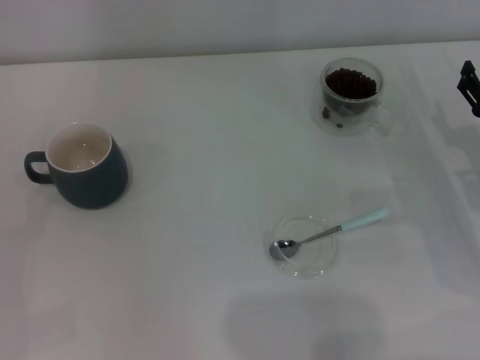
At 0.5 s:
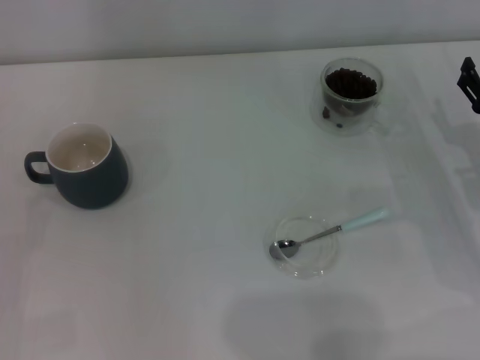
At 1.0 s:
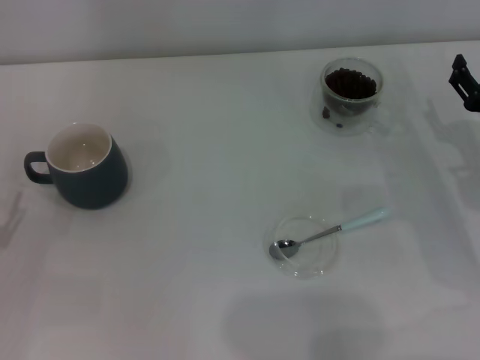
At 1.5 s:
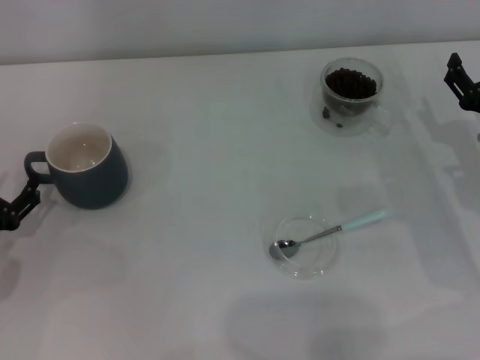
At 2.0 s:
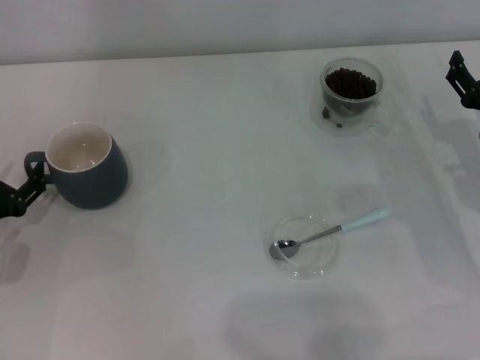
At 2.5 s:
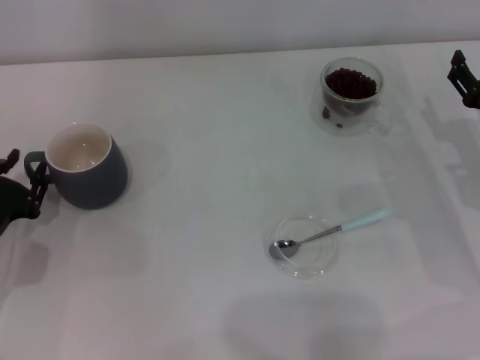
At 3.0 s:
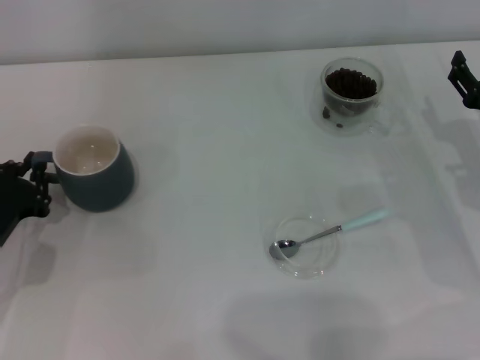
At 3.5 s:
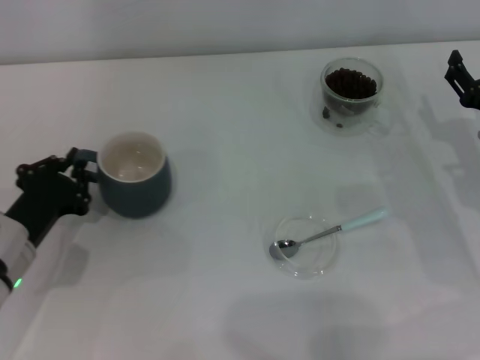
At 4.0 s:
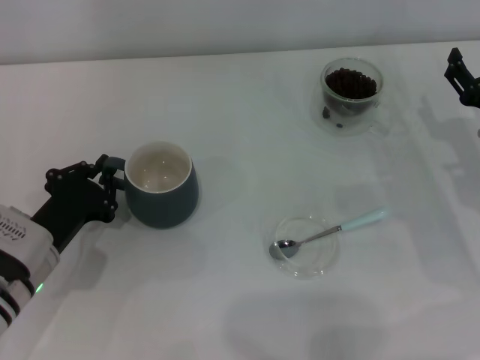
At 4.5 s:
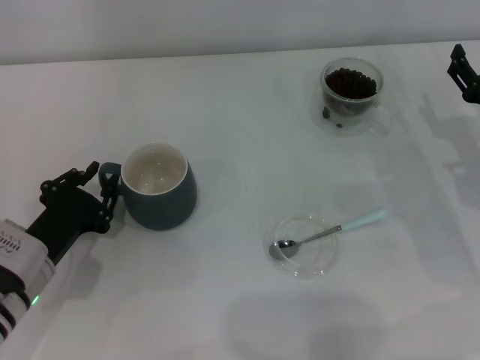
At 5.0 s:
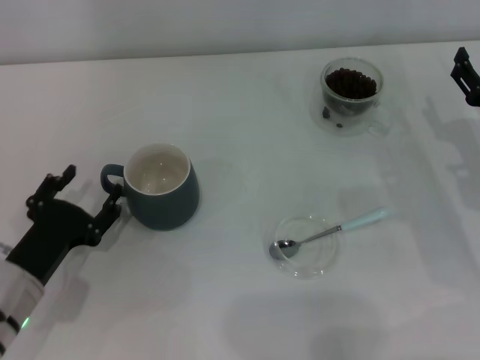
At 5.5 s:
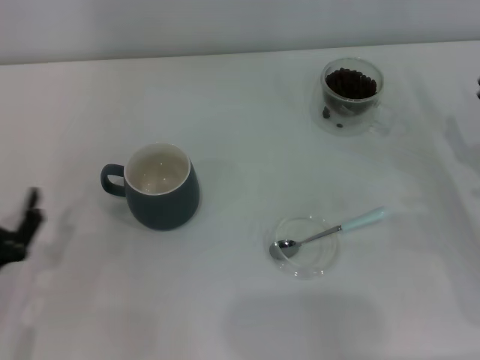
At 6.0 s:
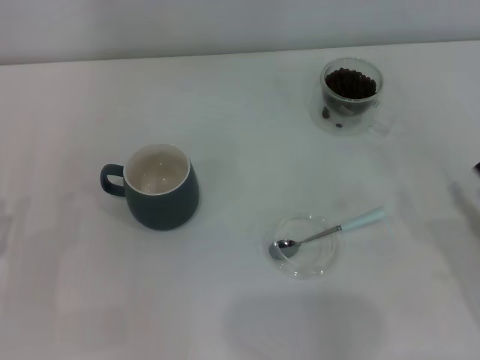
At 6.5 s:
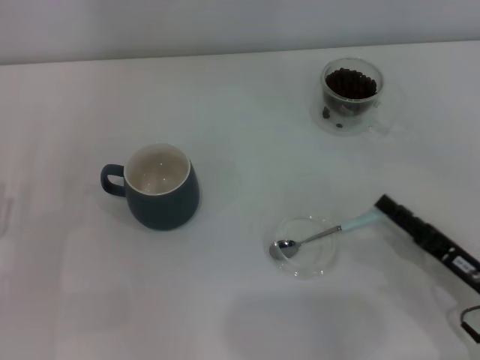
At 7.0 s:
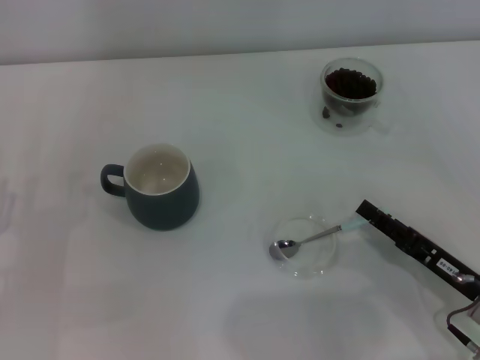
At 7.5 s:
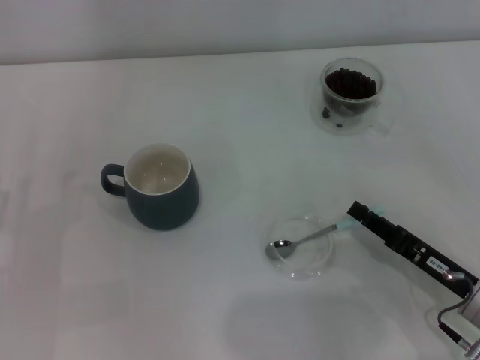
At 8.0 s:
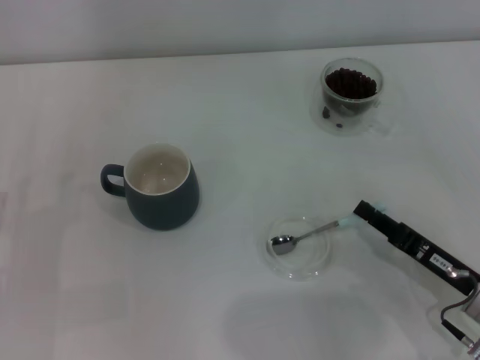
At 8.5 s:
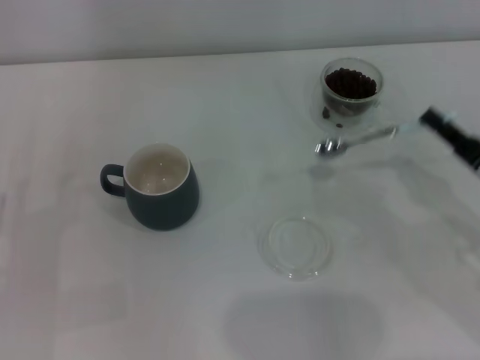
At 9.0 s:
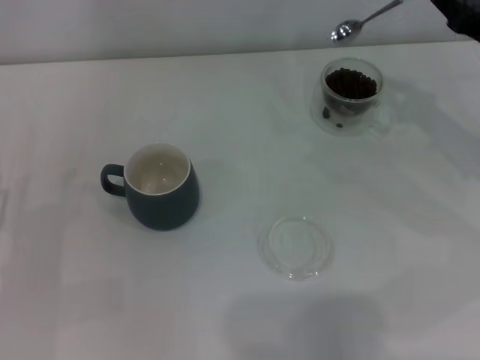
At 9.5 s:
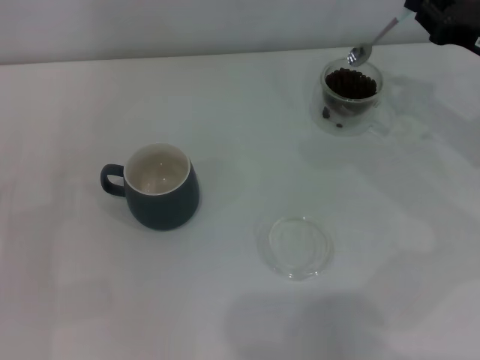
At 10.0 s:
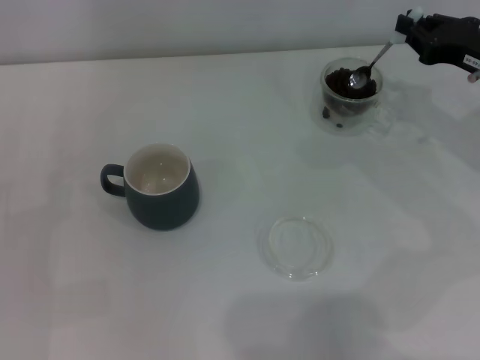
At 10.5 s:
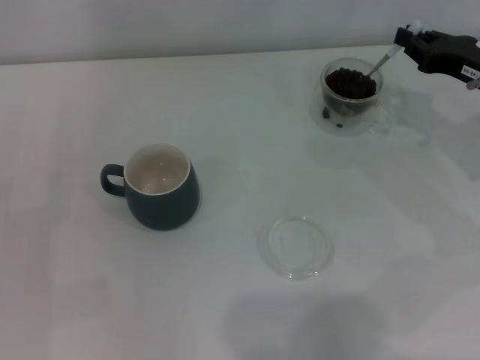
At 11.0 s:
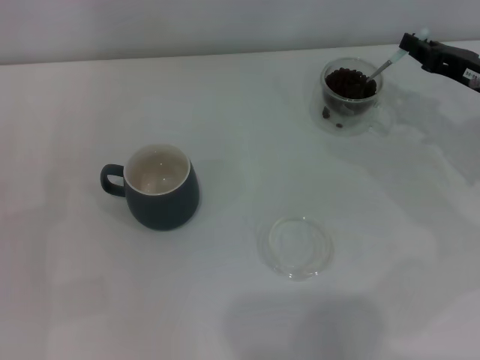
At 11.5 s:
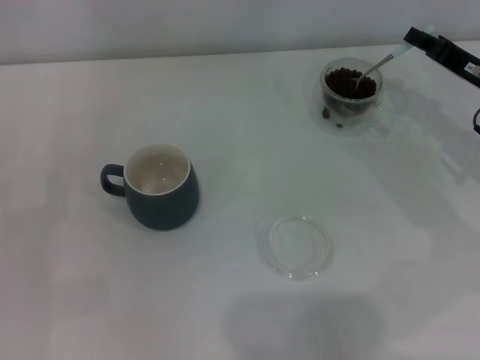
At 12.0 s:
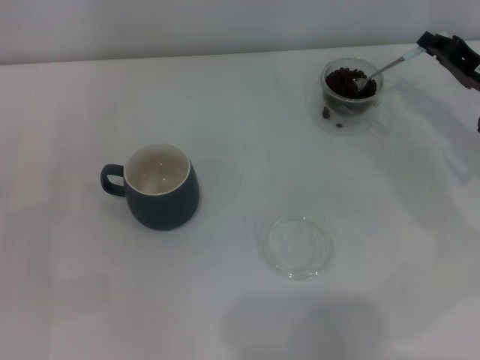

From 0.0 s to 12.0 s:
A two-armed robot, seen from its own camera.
Task of the whole recording: Use a blue spoon to take out the coffee beans from the glass and pour them into the gray cup.
Step, from 0.0 s to 5.0 s: Move the cup to the center of view with the left gripper.
Step, from 5.5 s to 8.0 s: Pick up the spoon with the right gripper.
From 0.0 s to 2.0 s: The left gripper shifts roughly 5 cm forward.
From 2.0 s to 4.0 s: The left gripper heads to the right, covering some 10 cm, and closes up.
From 4.0 s to 6.0 s: The left gripper is displaced to the left and backward by roughly 10 cm, and opens, while the right gripper is displaced backward by roughly 15 cm.
From 6.0 s to 8.0 s: The right gripper heads to the left, covering roughly 10 cm, and closes.
From 8.0 s to 10.0 s: The right gripper travels forward and upward by about 20 cm.

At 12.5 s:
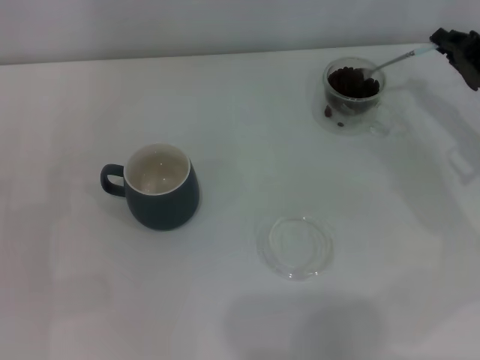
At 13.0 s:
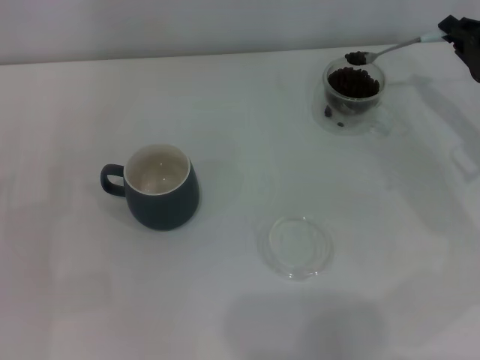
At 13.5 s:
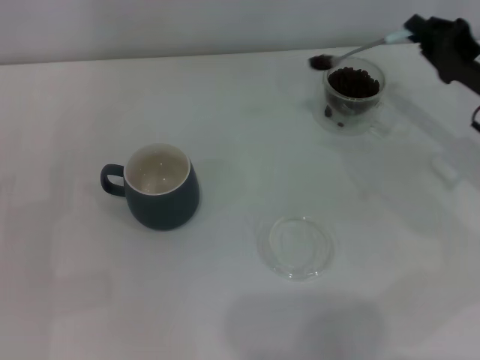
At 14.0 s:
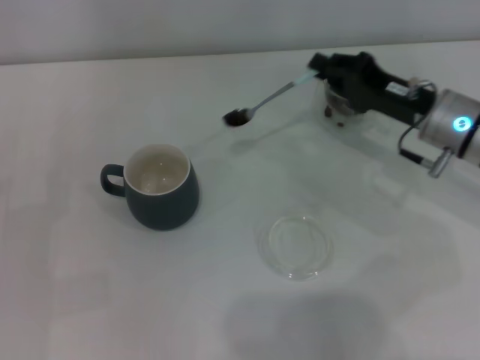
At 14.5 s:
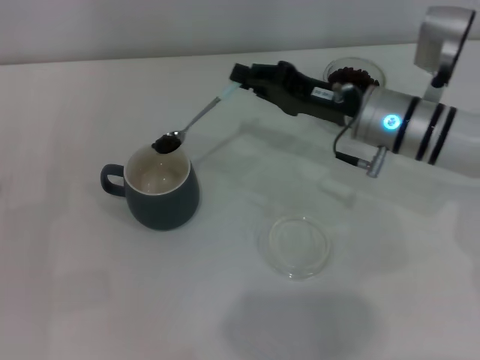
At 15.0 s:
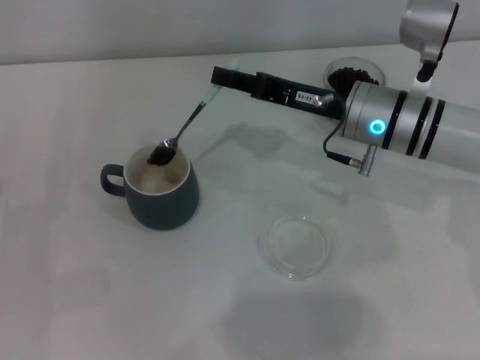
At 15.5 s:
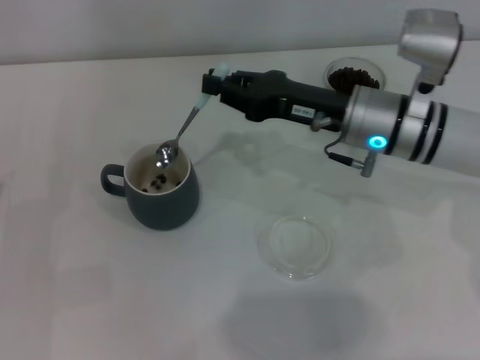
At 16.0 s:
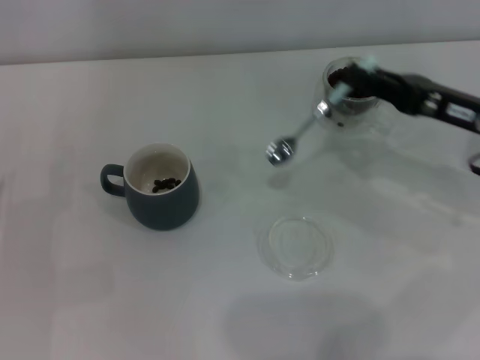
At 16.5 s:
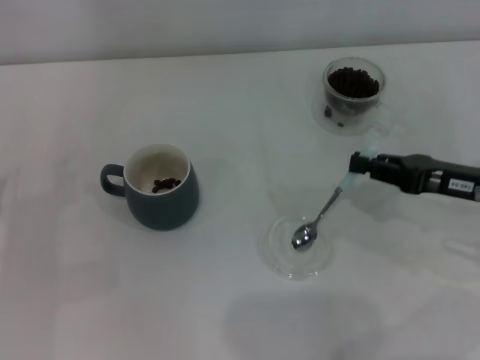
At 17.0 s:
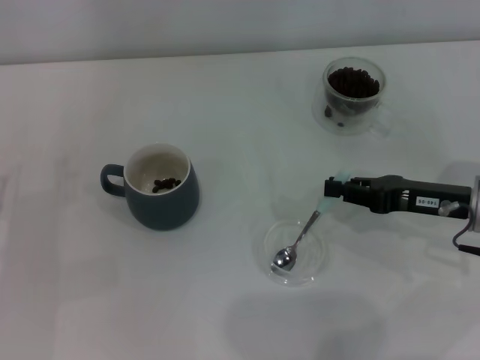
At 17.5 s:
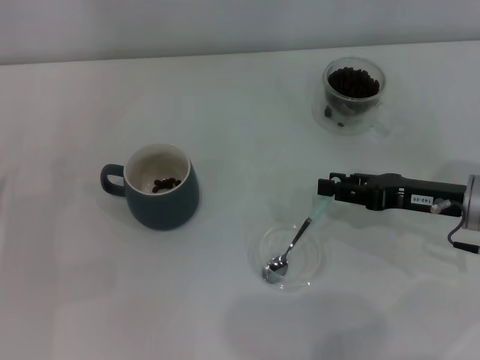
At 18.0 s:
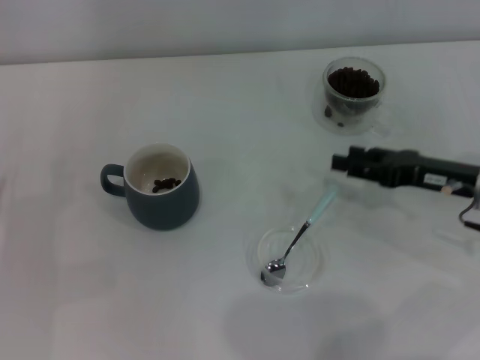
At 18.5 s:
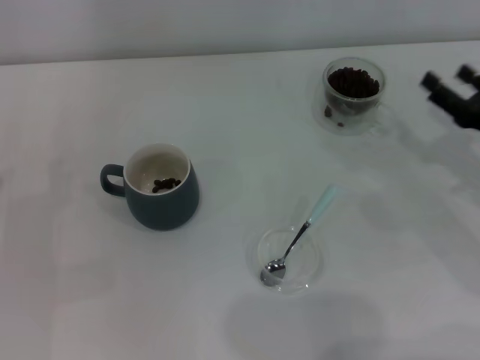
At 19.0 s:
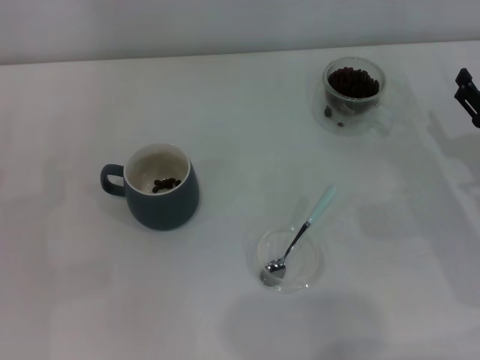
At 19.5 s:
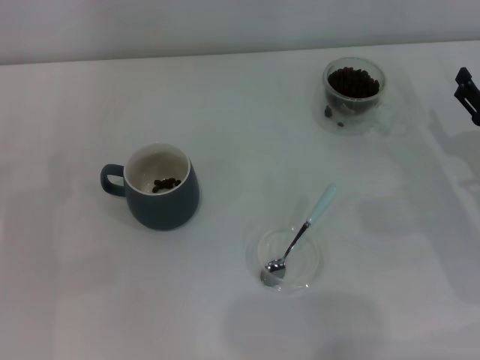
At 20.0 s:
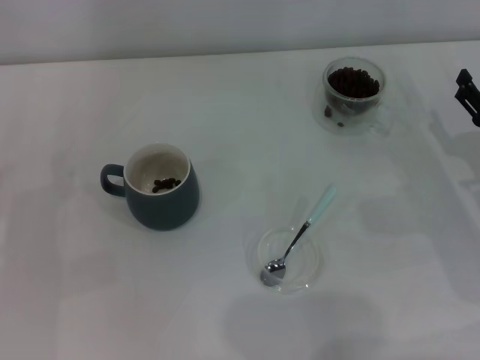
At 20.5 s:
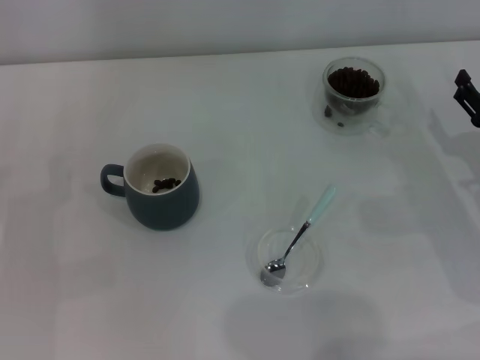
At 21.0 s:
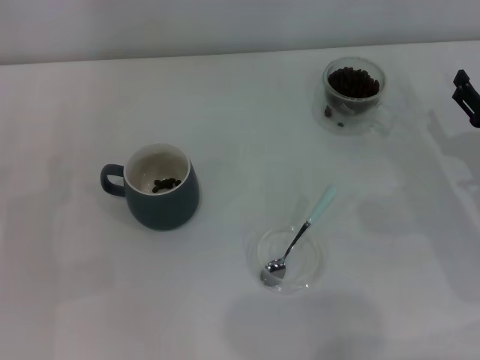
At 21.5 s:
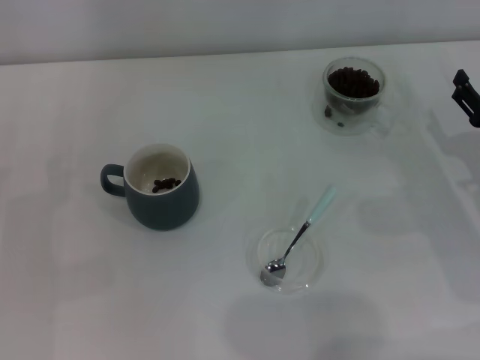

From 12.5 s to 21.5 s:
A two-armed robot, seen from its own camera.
Task of the whole recording: Use a blue spoon to take out the coffee beans from the glass and pour them into the gray cup.
Step, from 12.5 s to 15.5 s: Scoop a spoonful of beans into the cup with the right gripper.
Step, from 16.0 s to 17.5 s: Place the spoon back in its original place with the right gripper.
From 12.5 s to 14.5 s: The right gripper travels to the left by roughly 15 cm.
From 14.5 s to 17.0 s: The right gripper is displaced to the right and backward by approximately 15 cm.
From 17.0 s to 19.5 s: The right gripper moves some 5 cm, and opens its fingers.
From 19.5 s to 21.5 s: The two grippers keep their place.
